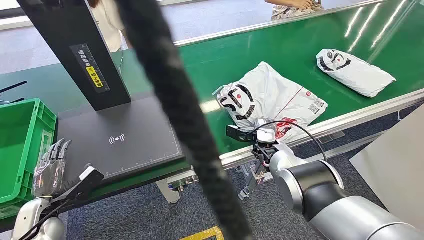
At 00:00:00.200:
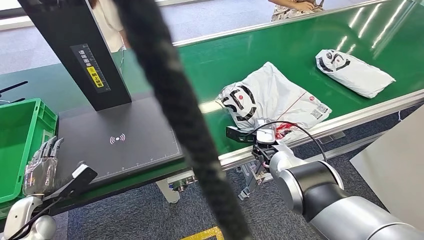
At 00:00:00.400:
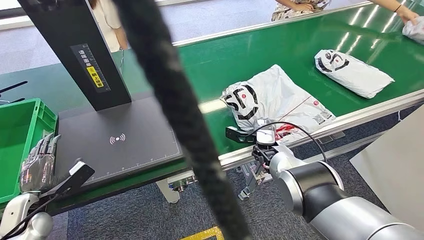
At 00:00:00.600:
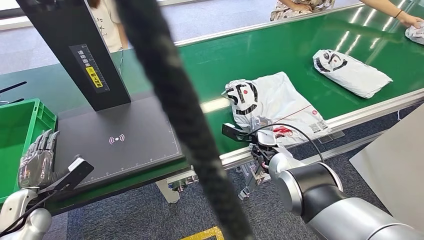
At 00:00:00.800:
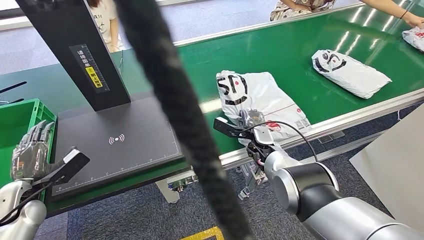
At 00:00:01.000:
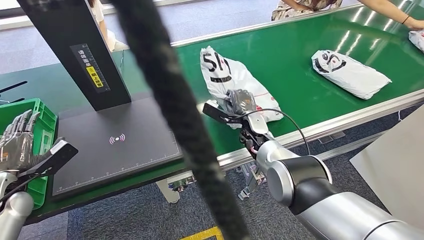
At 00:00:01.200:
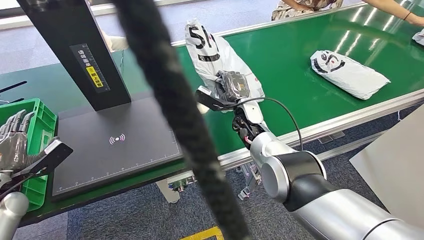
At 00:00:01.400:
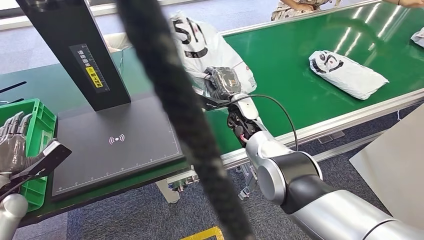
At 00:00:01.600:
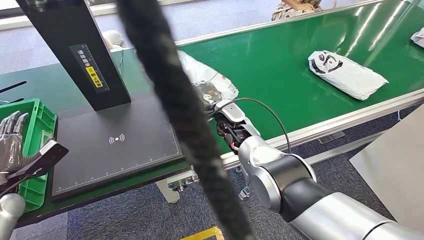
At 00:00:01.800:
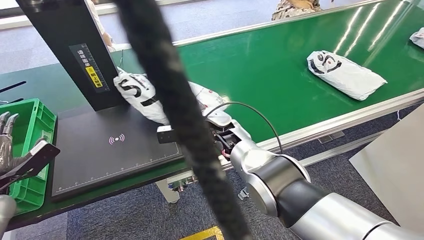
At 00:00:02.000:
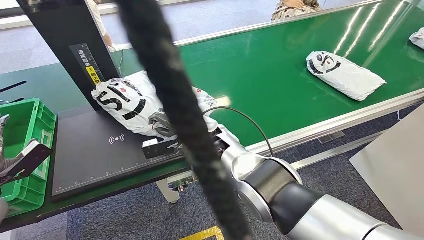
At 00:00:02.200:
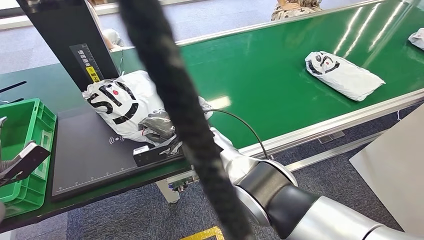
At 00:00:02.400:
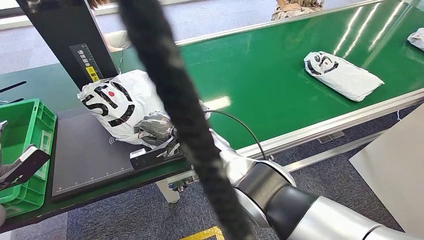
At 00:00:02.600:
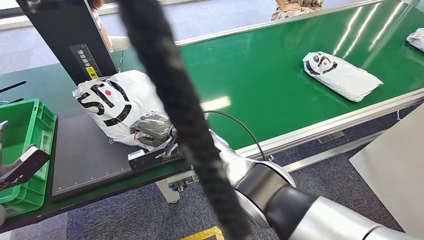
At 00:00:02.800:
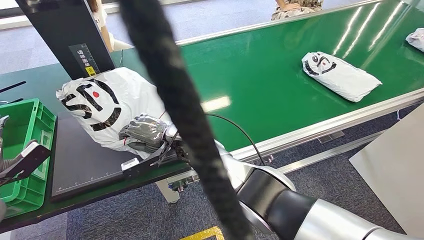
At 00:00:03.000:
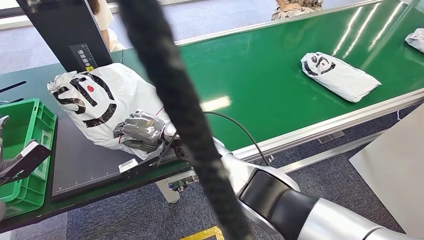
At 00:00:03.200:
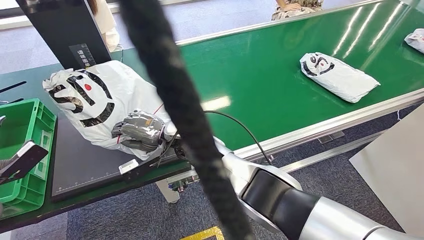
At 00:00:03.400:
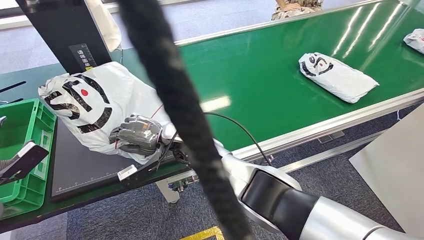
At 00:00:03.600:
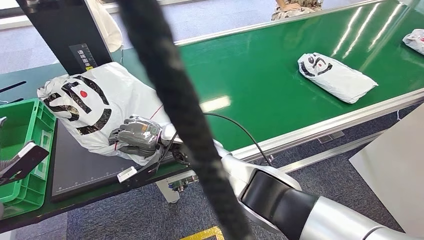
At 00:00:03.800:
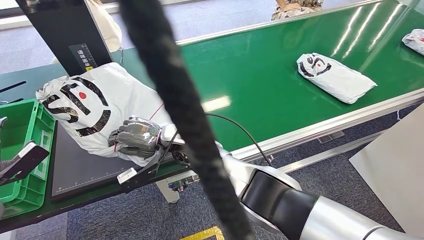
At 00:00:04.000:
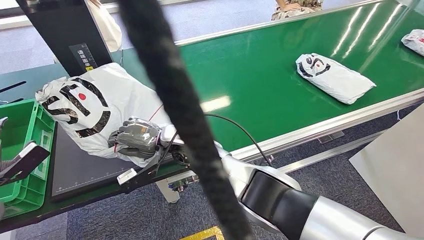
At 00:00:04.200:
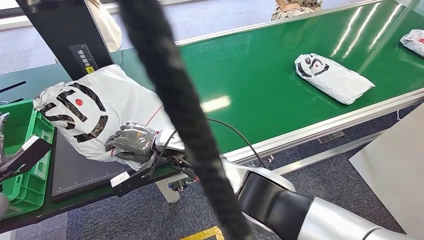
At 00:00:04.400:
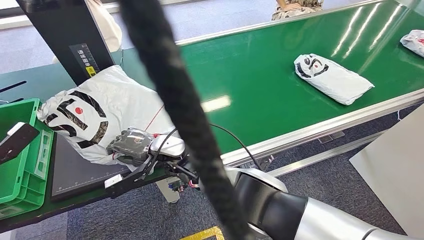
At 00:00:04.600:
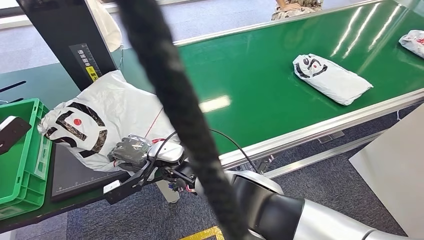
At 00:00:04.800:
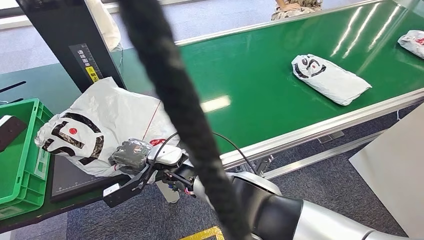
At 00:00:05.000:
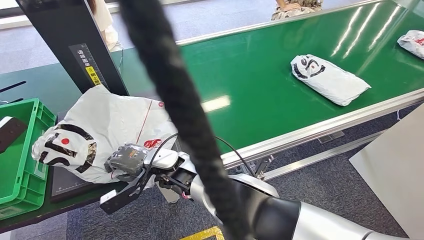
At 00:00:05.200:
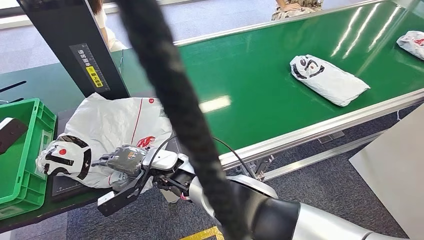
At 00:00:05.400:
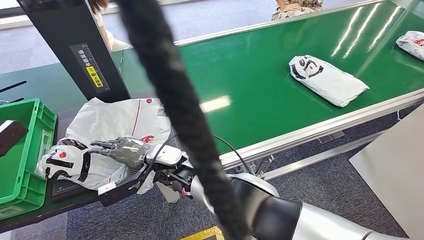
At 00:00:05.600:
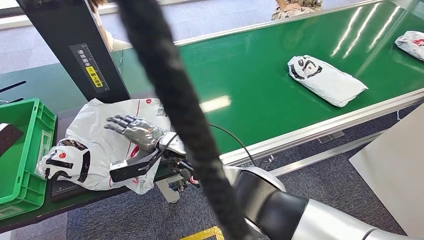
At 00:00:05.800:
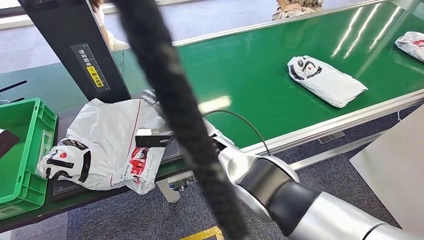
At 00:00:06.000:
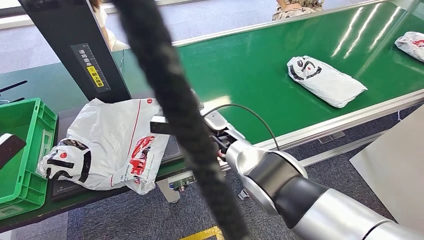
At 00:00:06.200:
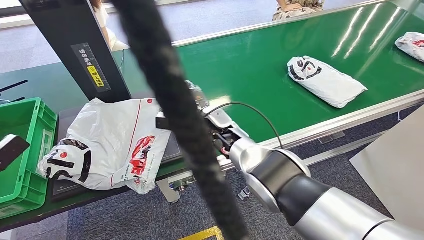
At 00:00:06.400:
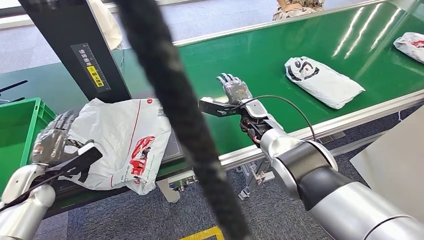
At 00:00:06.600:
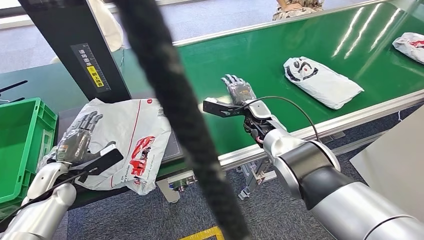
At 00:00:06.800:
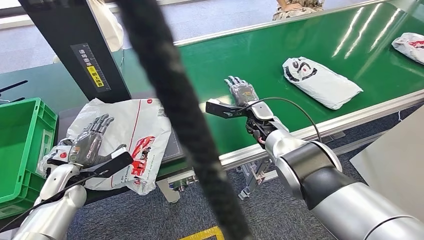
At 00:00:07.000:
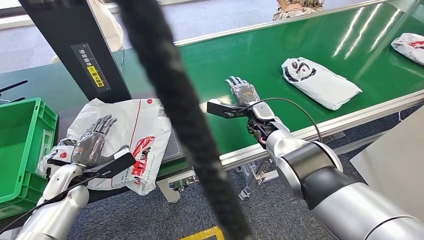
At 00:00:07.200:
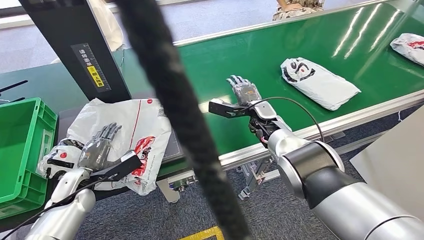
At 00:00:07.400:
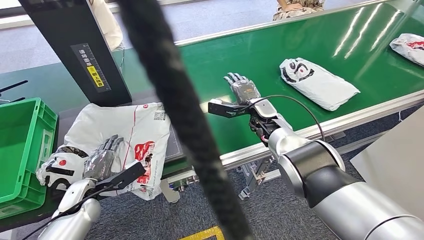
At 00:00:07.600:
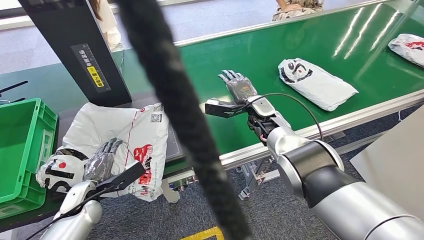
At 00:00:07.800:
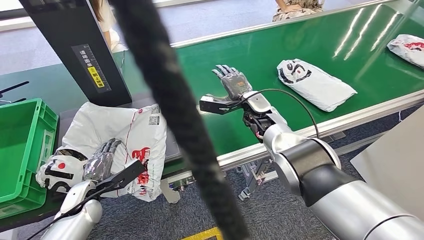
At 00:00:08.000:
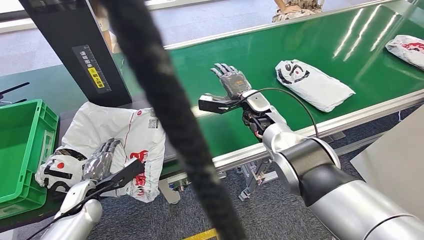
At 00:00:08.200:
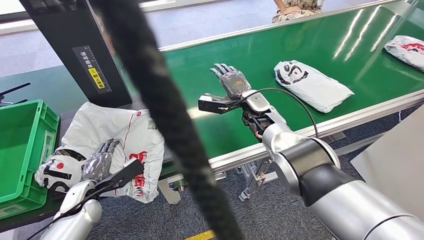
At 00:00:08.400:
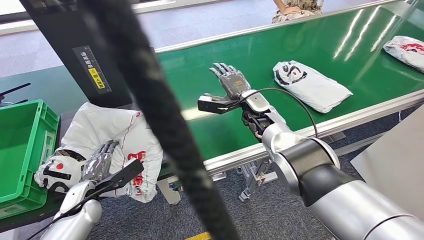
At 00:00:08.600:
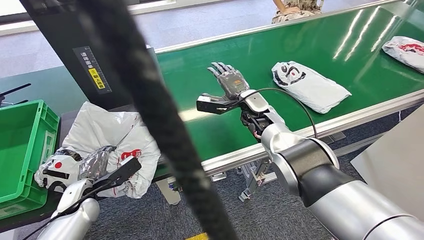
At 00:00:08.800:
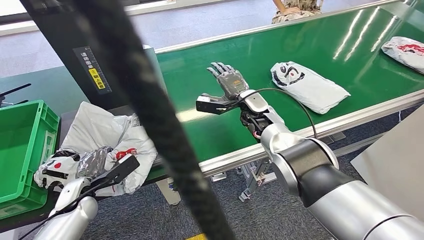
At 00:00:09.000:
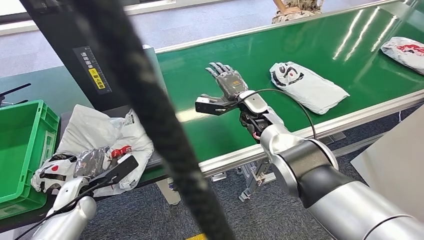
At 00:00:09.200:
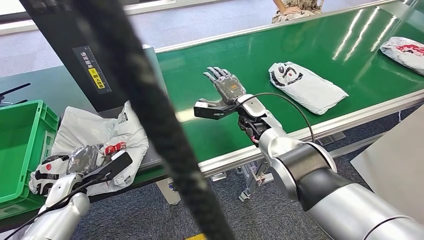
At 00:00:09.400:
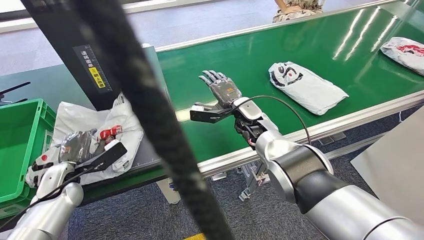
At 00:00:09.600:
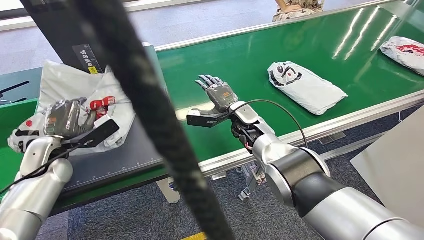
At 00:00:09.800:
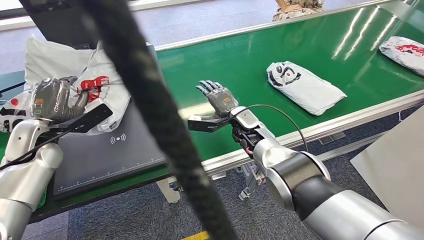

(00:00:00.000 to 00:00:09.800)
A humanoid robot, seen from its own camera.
Task of the whole recording: Weigh the package on the weighing device and place it in the left basket.
Step, 00:00:00.000 - 00:00:01.400: Pick up the package from the conveyor belt.
Step, 00:00:01.600 - 00:00:03.200: Place the package onto the inbound machine.
00:00:02.800 - 00:00:04.200: The hands stay close to where they were, moving slightly.

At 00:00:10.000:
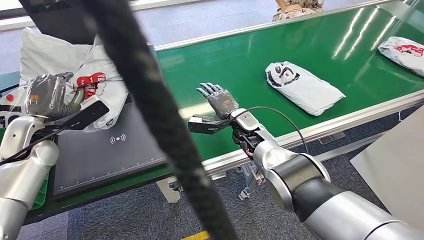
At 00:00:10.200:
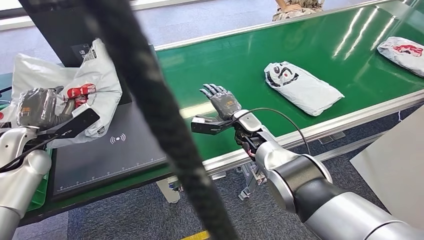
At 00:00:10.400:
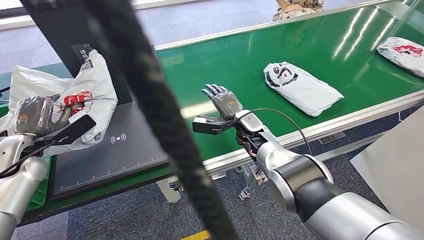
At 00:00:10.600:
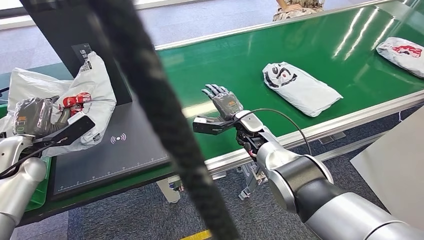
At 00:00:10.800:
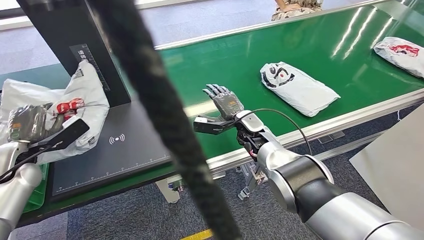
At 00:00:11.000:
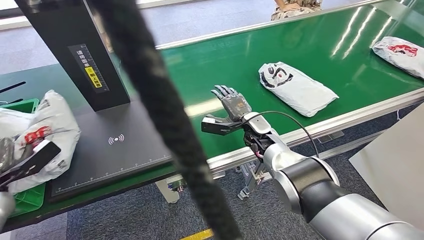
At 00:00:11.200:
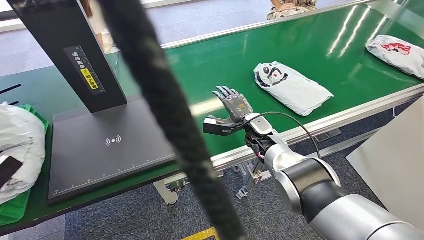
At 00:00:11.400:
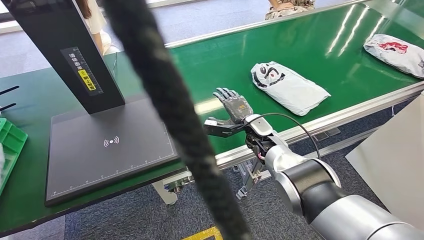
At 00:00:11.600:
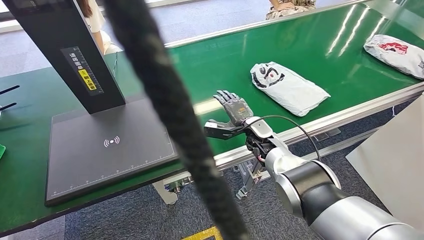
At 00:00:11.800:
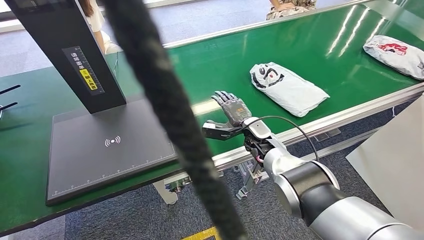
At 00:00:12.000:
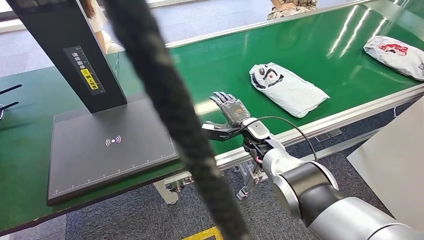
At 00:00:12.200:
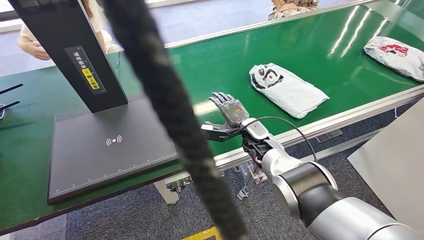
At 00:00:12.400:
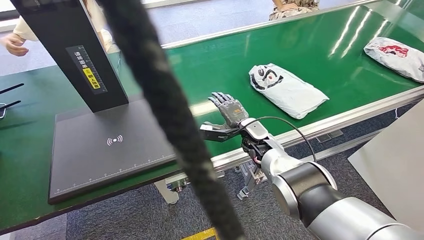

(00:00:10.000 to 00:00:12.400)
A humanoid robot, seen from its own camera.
Task of the whole recording: Weigh the package on the weighing device and place it in the left basket.
Step, 00:00:10.600 - 00:00:12.400: Place the package into the parcel locker.
